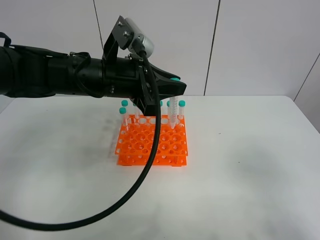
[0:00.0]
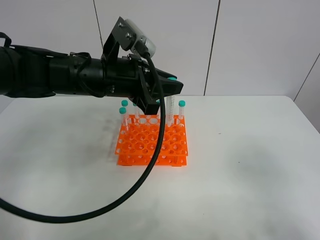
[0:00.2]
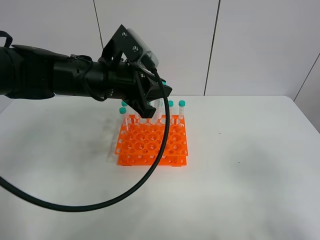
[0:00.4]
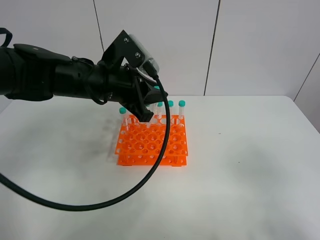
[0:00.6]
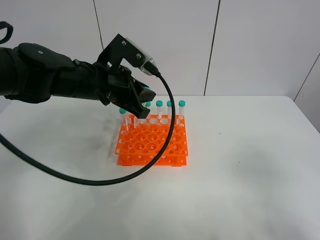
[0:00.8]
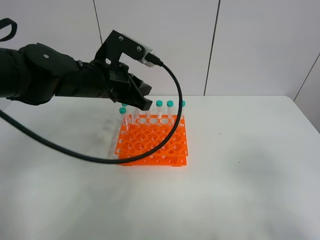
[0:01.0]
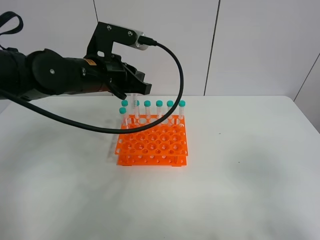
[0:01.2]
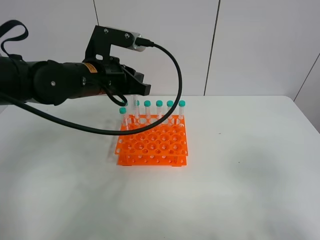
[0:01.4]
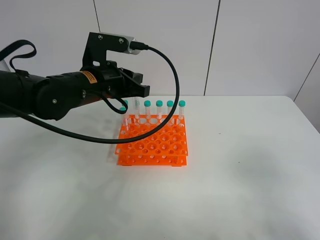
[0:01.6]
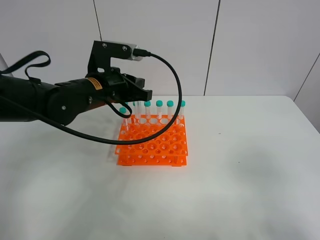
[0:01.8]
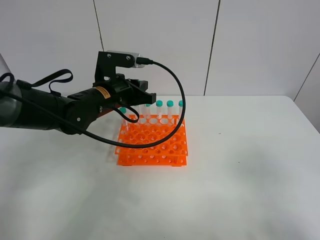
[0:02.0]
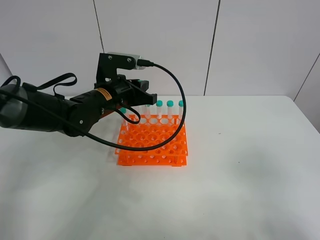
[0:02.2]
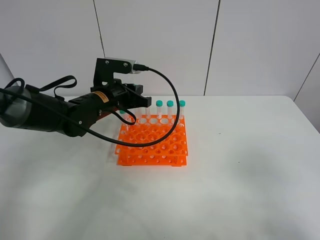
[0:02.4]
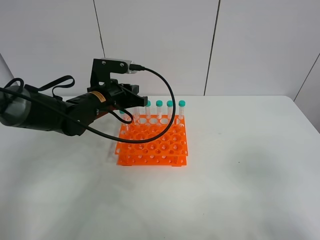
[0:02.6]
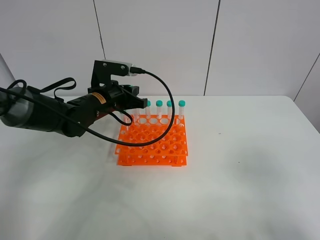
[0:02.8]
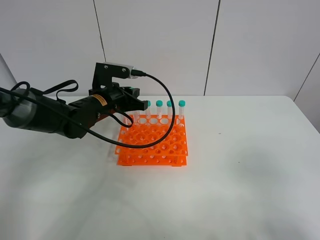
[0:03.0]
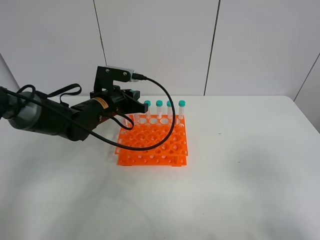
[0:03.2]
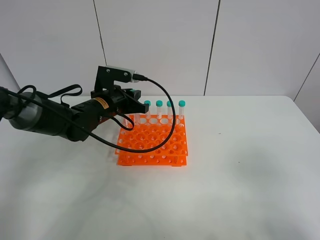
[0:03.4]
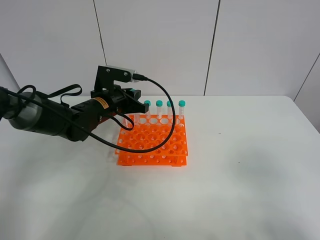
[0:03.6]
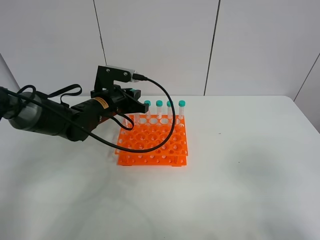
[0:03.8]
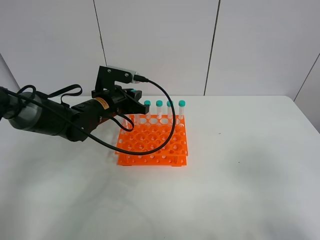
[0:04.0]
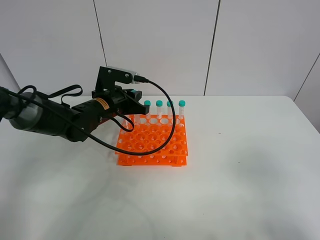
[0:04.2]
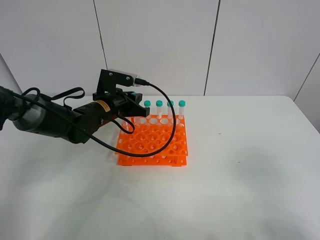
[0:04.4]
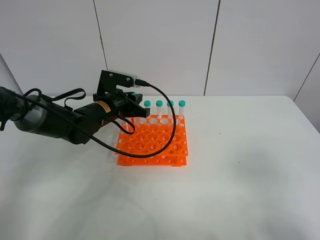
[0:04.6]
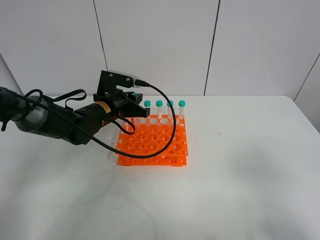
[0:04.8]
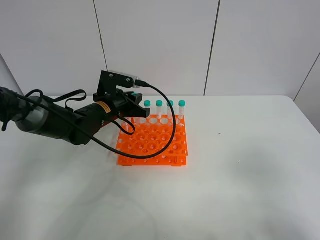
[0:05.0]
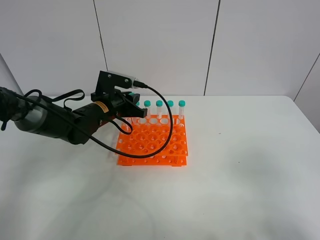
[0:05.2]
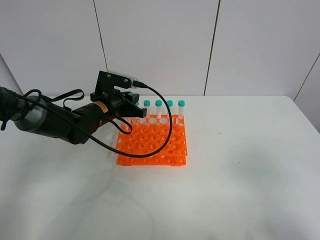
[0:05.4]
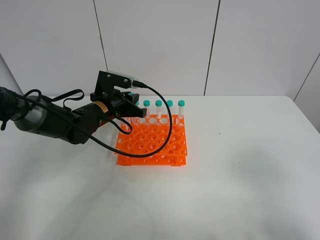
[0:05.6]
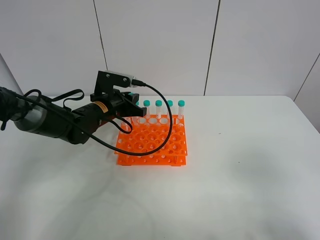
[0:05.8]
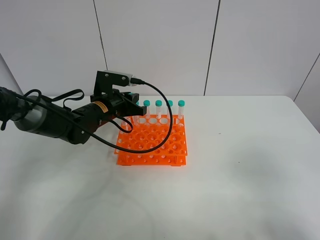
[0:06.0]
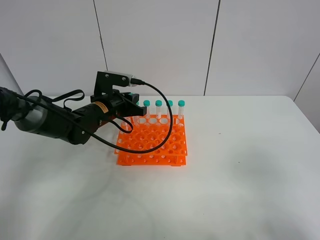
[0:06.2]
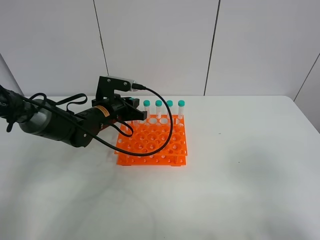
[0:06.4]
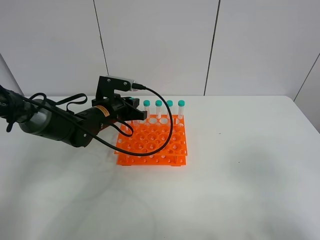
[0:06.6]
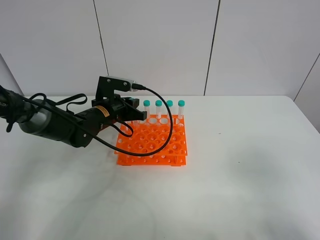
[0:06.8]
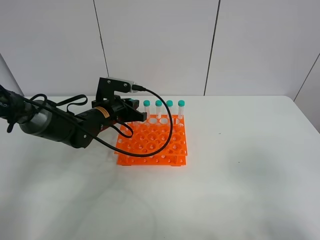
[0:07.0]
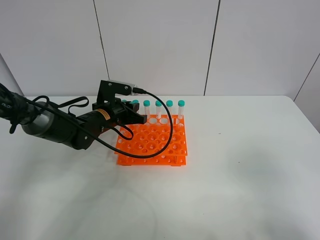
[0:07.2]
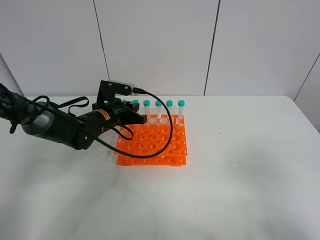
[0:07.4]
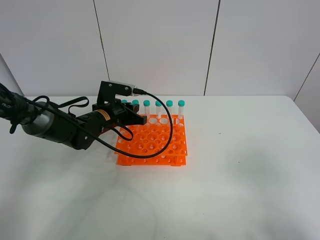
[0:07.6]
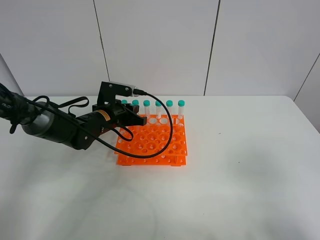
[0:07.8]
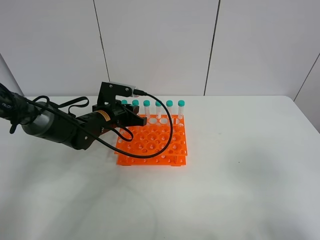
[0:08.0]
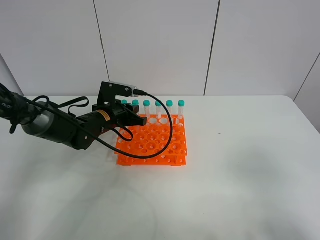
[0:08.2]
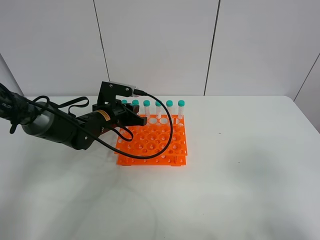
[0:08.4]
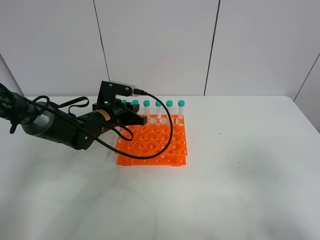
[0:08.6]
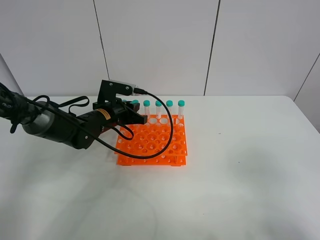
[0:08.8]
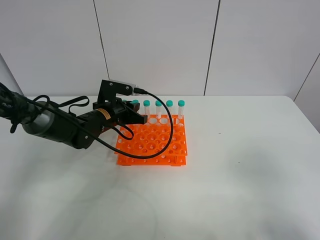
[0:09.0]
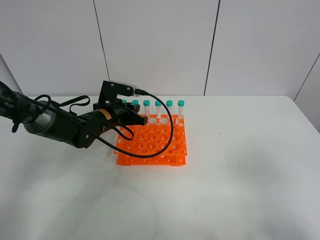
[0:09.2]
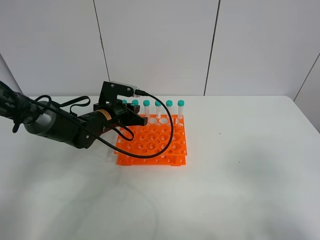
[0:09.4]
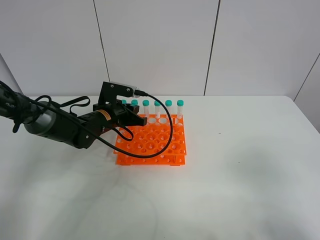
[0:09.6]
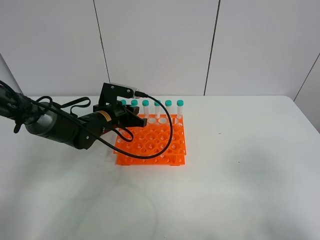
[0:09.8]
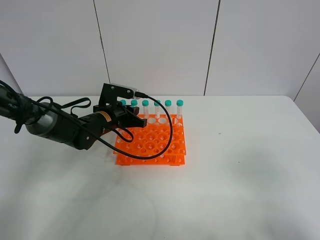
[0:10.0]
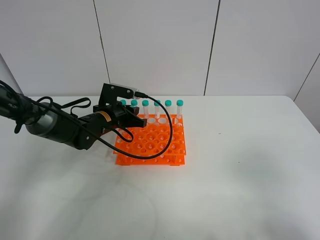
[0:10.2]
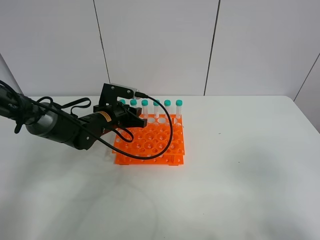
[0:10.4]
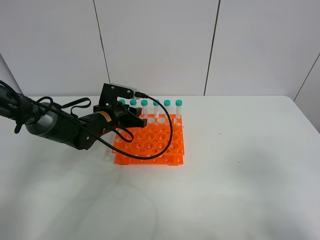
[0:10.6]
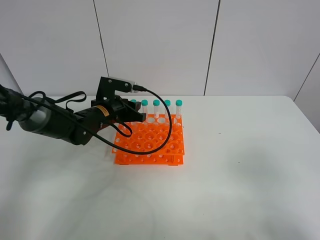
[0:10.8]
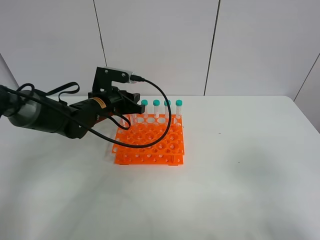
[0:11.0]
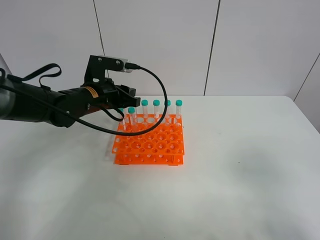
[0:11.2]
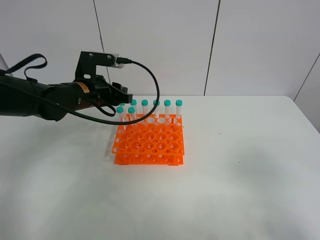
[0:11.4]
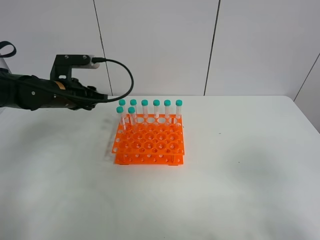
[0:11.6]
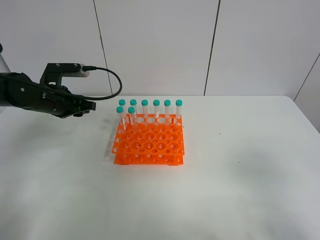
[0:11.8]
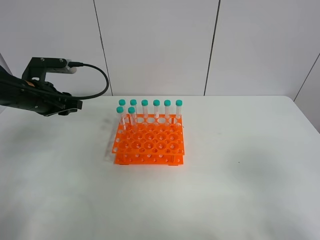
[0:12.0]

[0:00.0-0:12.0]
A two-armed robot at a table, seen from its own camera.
Task of the whole recording: Put the test tube on the table back onto the test tube rack.
Step, 0:00.0 to 0:11.6: Place the test tube on the test tube rack with the left gripper.
0:00.0 to 0:01.6: The left gripper moves roughly 5 cm.
0:01.6 to 0:03.0: The left gripper is displaced downward by some 10 cm.
0:03.0 to 0:04.4: The two grippers keep their place.
0:04.4 to 0:06.0: Both grippers stay about where they are.
0:06.0 to 0:07.6: The grippers stay close to where they were, moving slightly.
0:07.6 to 0:10.4: The two grippers keep their place.
0:10.4 to 0:12.0: The left gripper shifts approximately 15 cm to the left and upward.

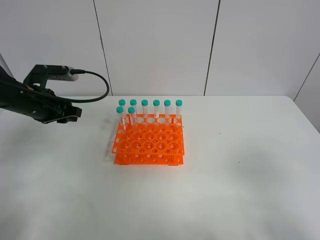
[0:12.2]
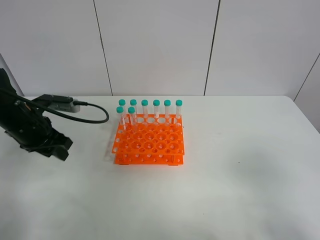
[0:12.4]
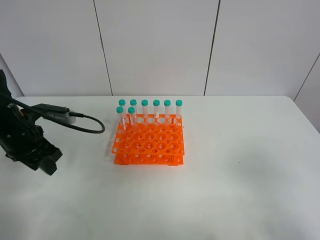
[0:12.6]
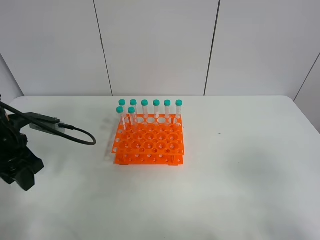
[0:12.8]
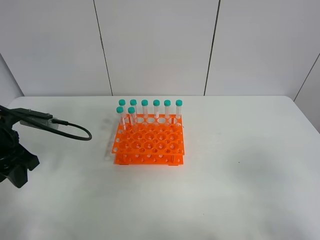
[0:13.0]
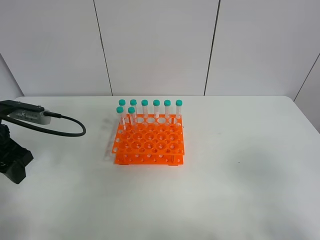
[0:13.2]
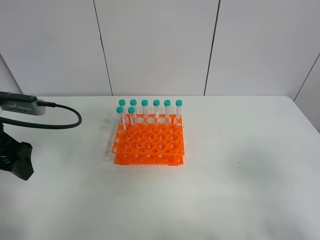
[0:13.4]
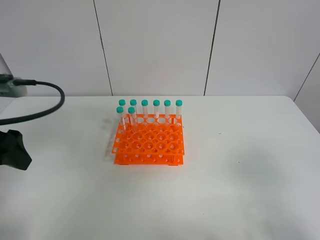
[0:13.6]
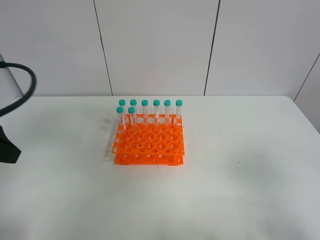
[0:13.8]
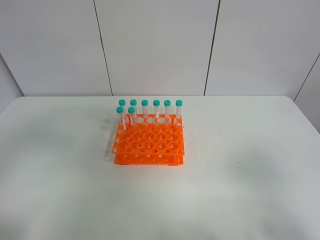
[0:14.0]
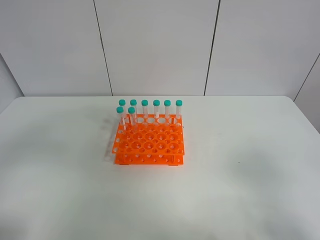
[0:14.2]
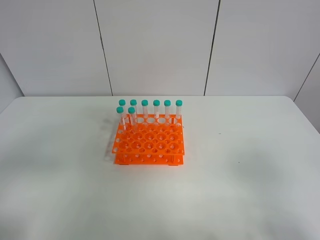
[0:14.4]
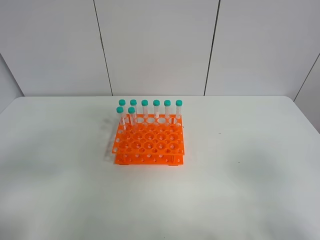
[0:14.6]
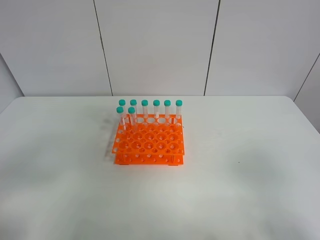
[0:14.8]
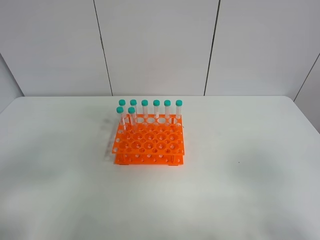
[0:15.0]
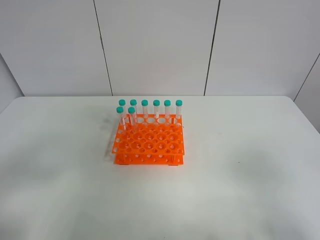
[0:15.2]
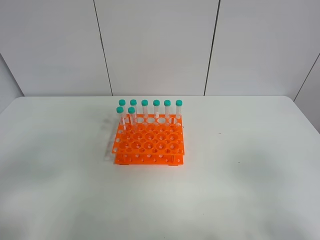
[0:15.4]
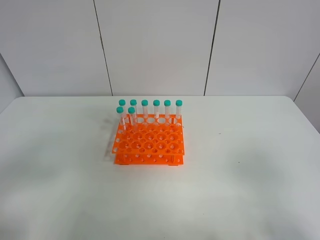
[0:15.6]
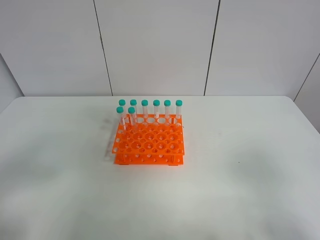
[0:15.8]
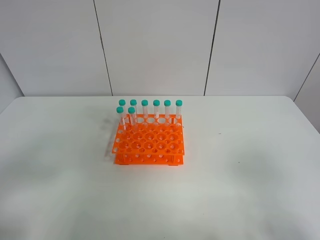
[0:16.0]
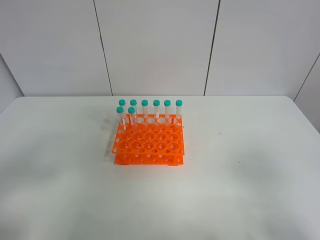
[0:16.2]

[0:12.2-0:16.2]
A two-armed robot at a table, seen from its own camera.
Task of the whole recording: Put the test tube on the table back onto the test tube rack.
0:12.2 to 0:13.6: The left gripper travels backward and upward by about 20 cm, and opens up.
0:13.6 to 0:14.8: The left gripper is displaced backward by some 15 cm.
0:14.8 to 0:16.2: The two grippers keep their place.
